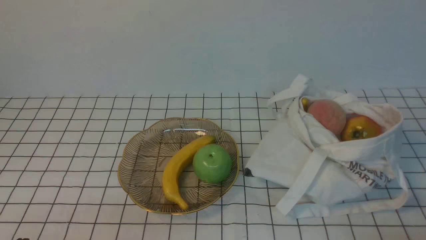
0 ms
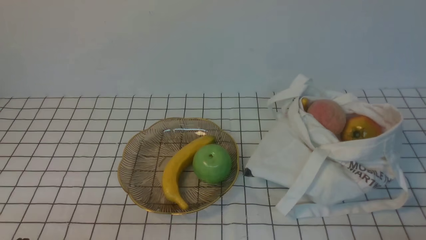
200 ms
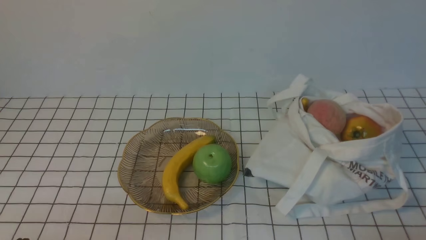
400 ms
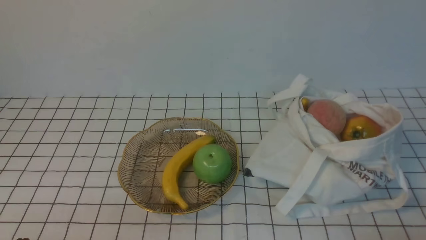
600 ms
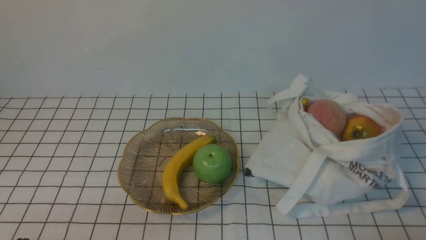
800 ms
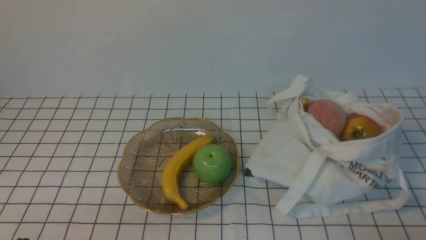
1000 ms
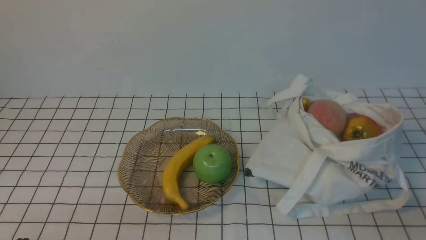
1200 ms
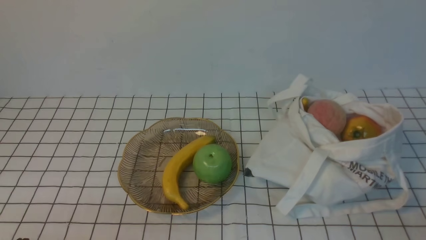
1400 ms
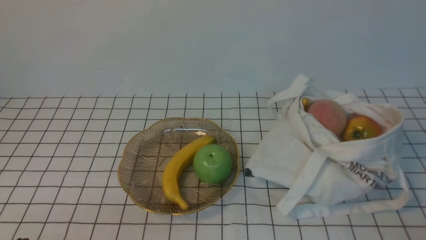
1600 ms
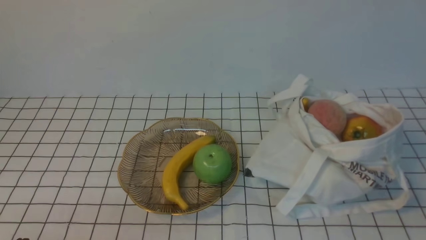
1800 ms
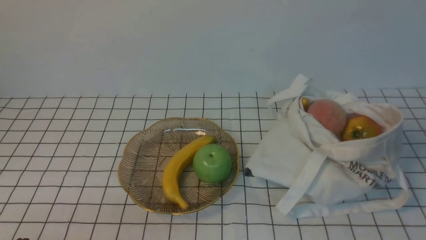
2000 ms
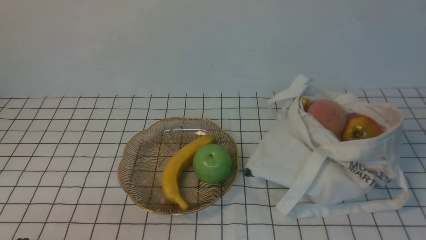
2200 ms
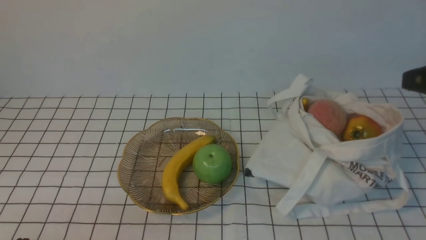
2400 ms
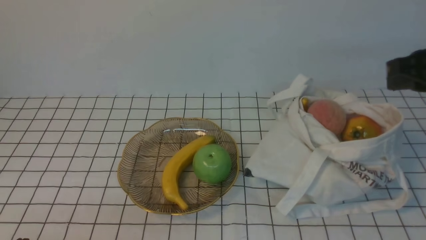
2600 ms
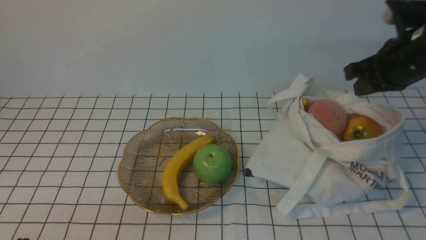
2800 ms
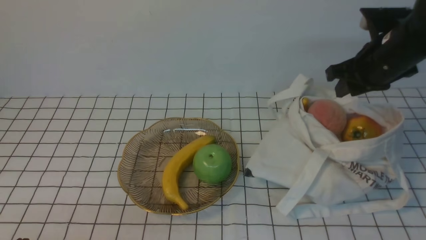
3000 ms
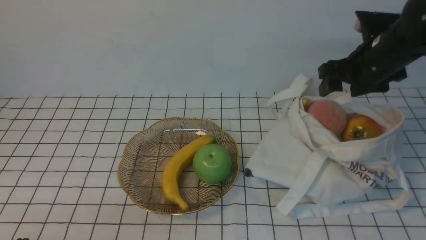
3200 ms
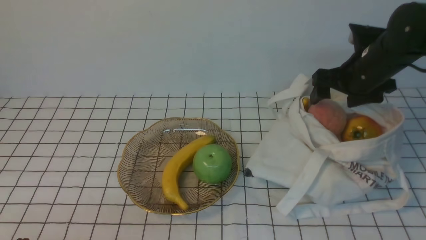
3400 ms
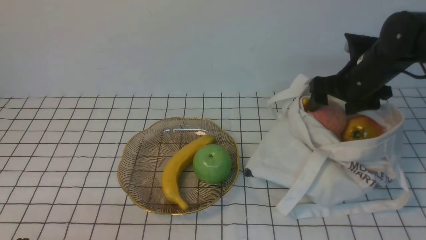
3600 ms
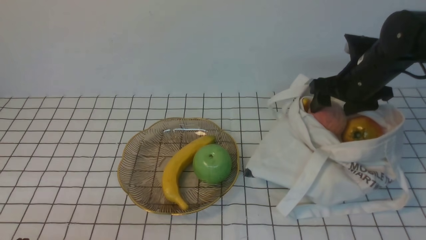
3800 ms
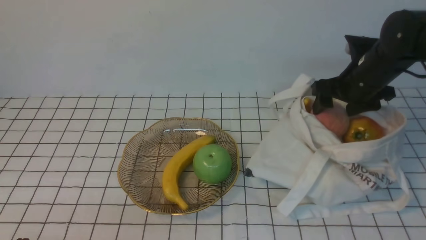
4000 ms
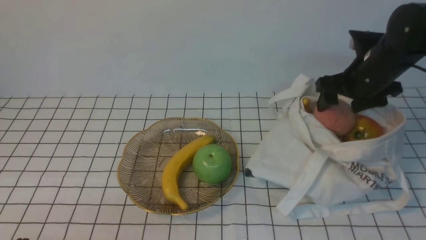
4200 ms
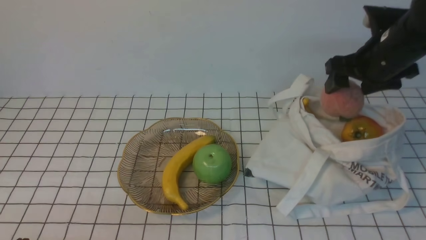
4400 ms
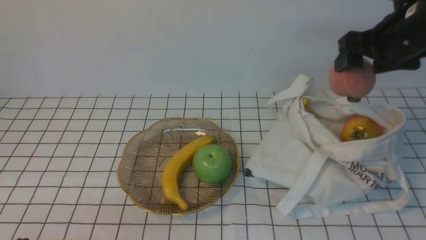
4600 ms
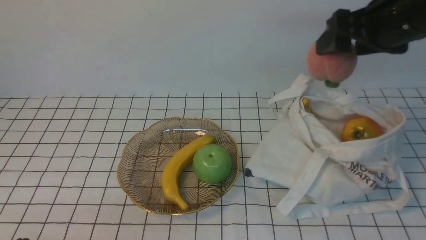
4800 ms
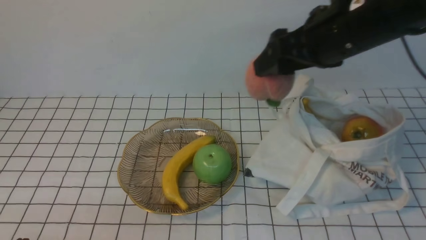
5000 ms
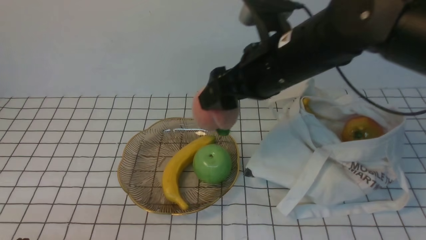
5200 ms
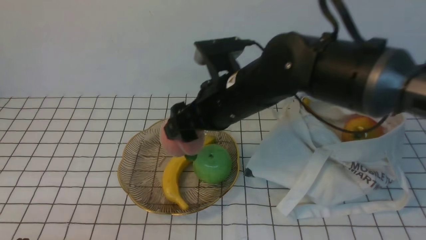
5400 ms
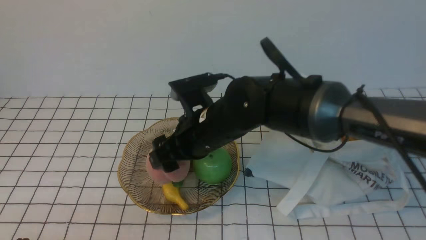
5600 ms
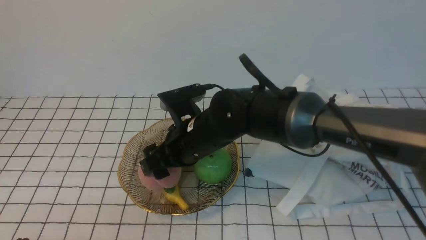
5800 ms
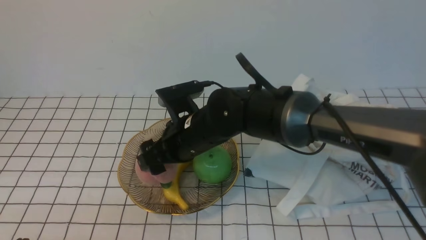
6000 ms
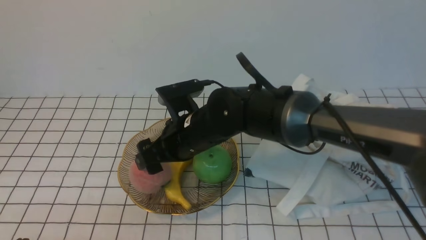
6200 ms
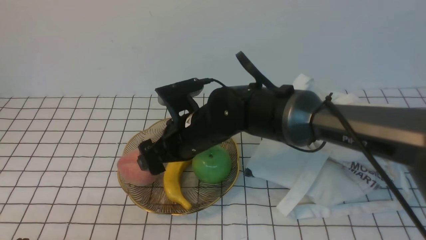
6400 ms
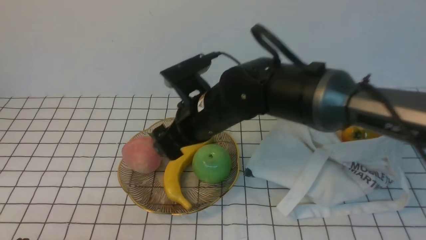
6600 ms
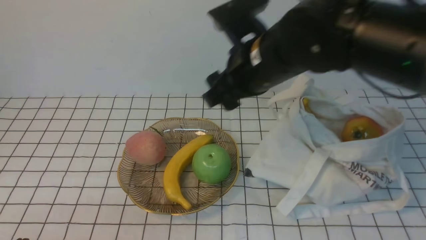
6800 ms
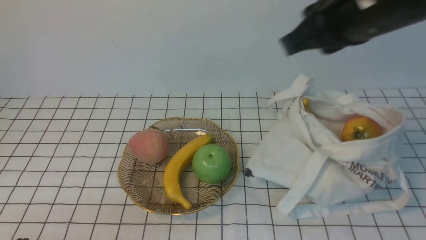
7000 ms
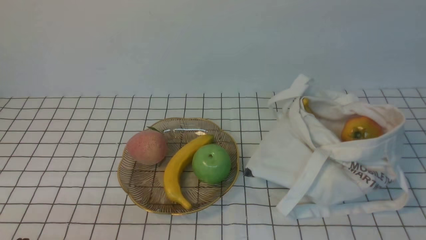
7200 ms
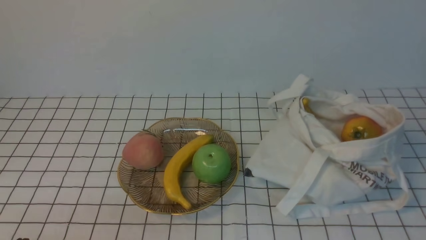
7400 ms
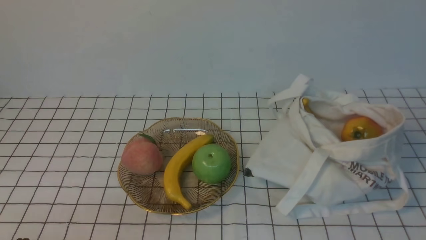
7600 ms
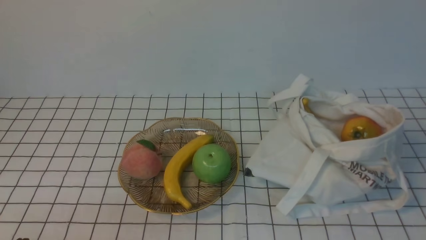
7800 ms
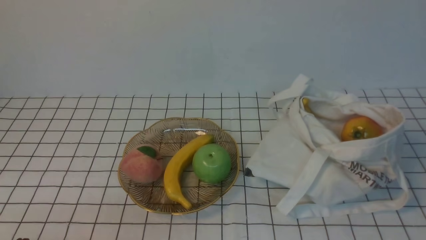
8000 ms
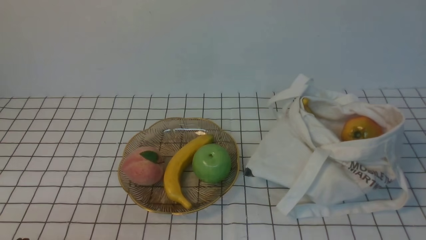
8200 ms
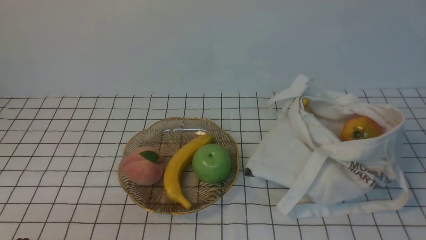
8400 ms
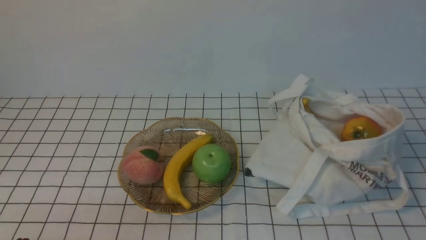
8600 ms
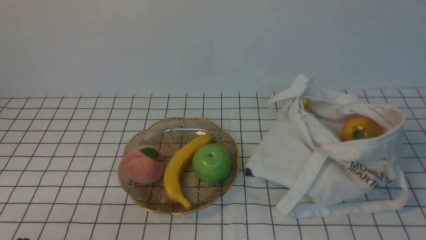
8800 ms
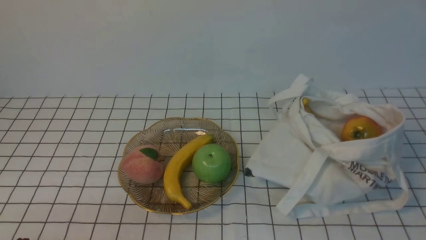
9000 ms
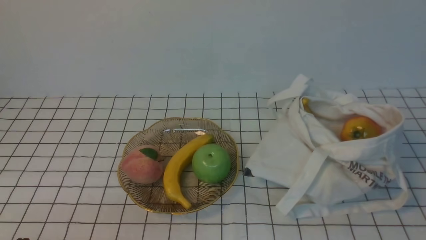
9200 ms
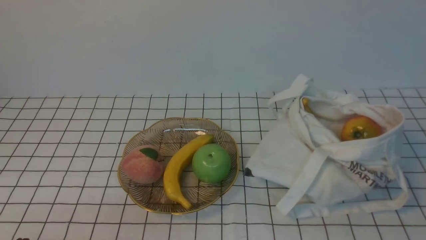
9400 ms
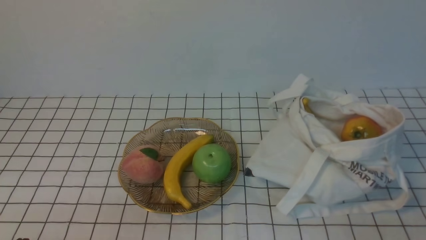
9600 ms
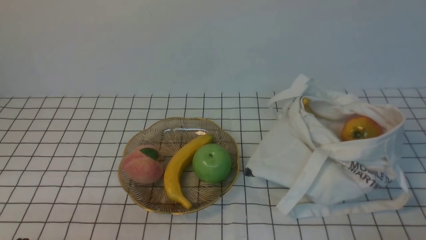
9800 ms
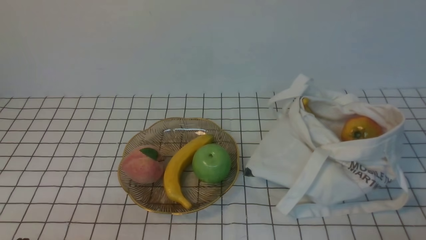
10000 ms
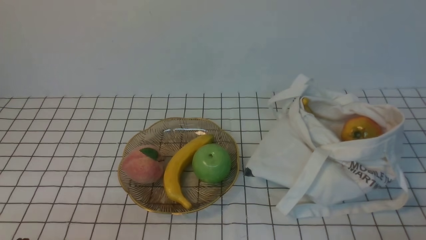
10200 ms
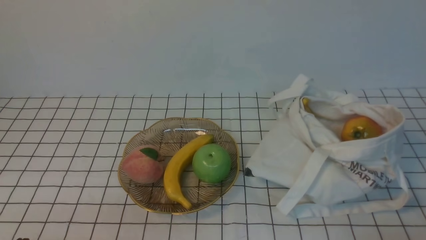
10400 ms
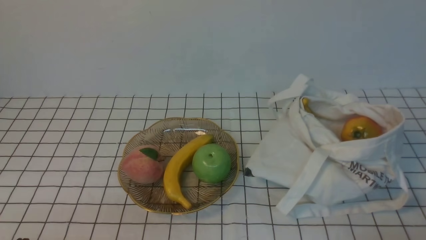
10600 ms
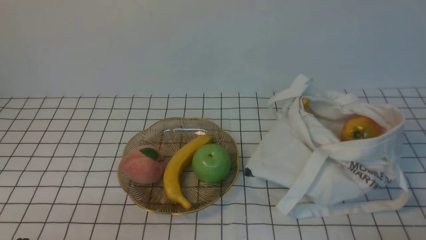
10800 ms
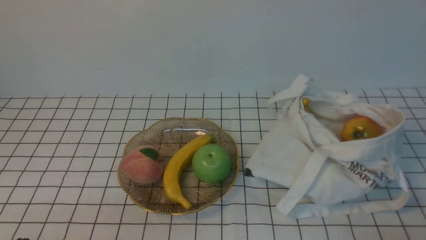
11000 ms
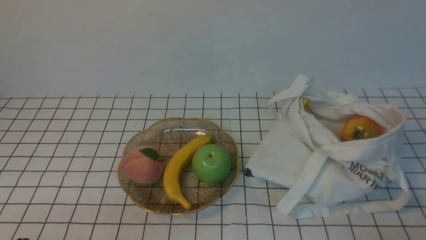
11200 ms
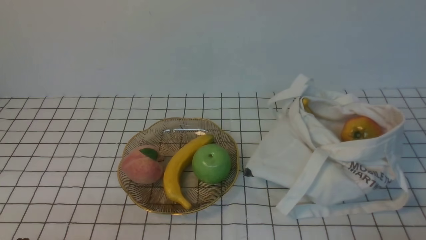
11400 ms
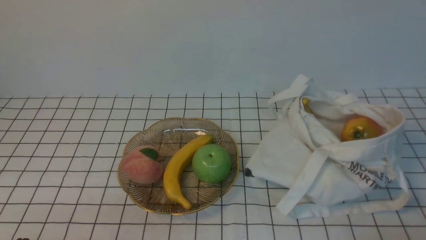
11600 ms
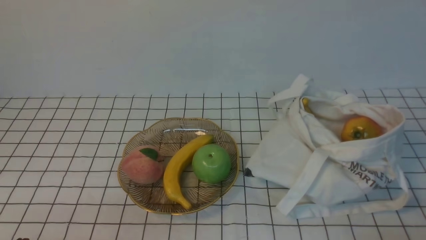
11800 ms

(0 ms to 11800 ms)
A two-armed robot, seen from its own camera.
Step, 0 ms - 4200 ms: use the right arm to grab a peach from the bag.
Step, 4400 ms - 6200 ms: use the right arm to put the peach into the empty plate on the left.
1400 ms - 3000 ms: The right gripper travels forward by roughly 30 cm, and opens its fingers.
3000 ms - 4400 ms: The right gripper opens its fingers.
4400 ms - 6000 ms: The right gripper goes approximately 30 cm to the left.
6000 ms - 7400 ms: The right gripper travels to the right, upward and backward by approximately 50 cm, and closes.
10400 ms - 11800 ms: Both grippers stay about where they are.

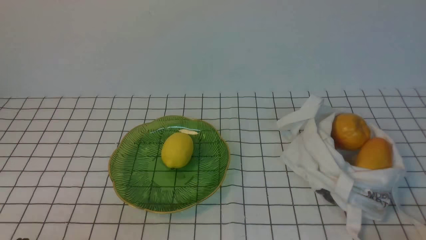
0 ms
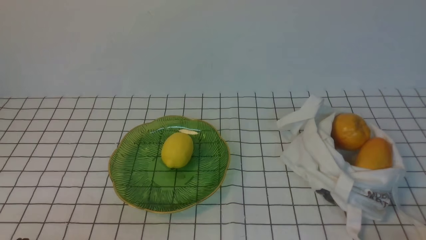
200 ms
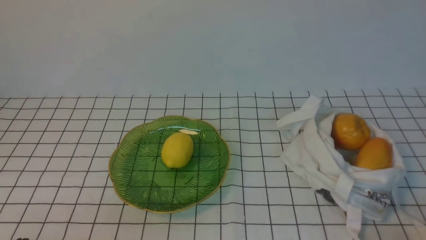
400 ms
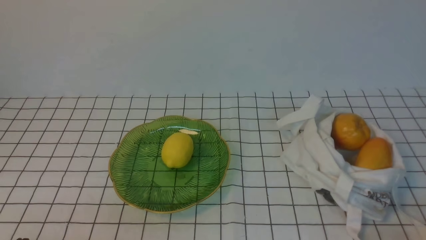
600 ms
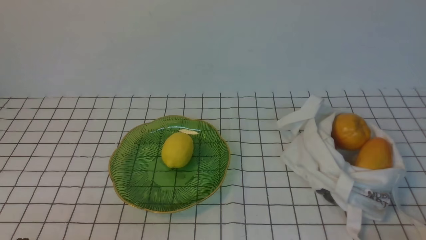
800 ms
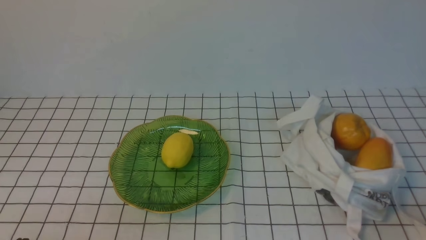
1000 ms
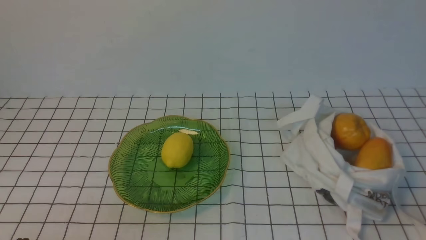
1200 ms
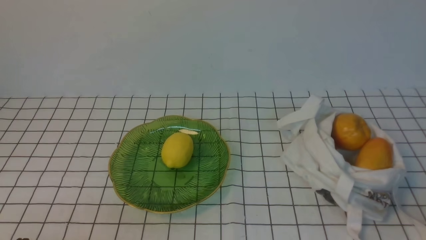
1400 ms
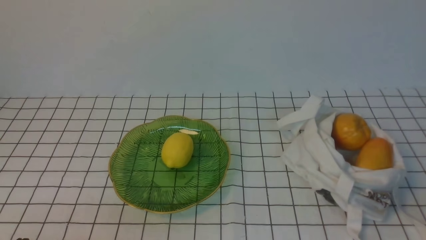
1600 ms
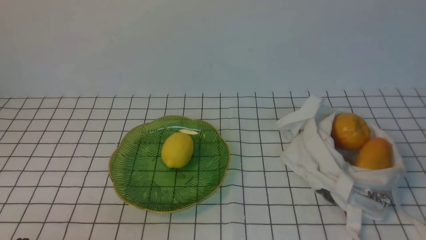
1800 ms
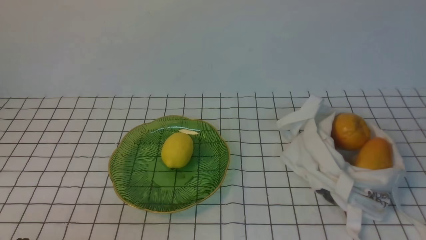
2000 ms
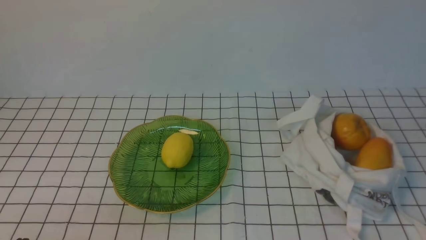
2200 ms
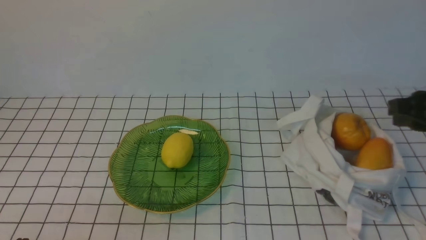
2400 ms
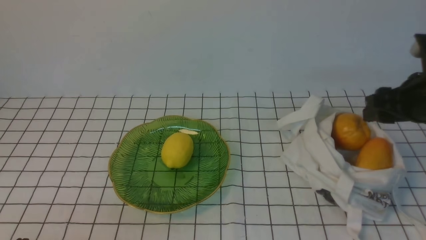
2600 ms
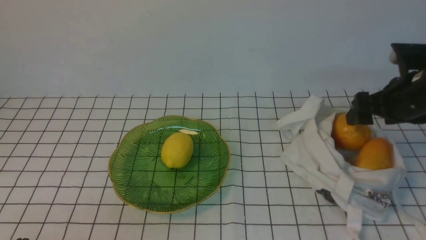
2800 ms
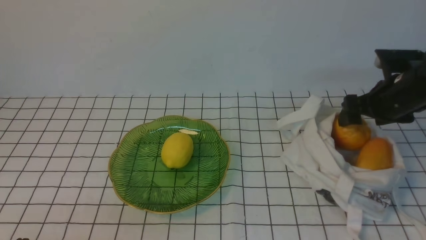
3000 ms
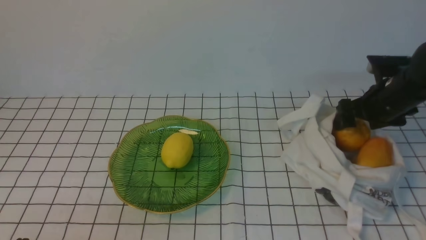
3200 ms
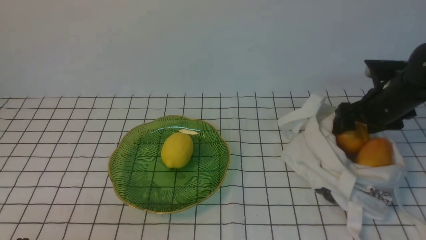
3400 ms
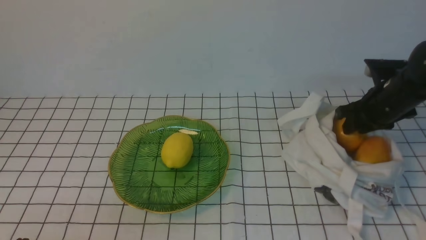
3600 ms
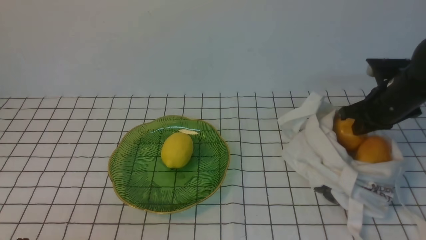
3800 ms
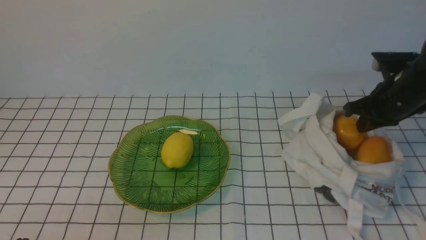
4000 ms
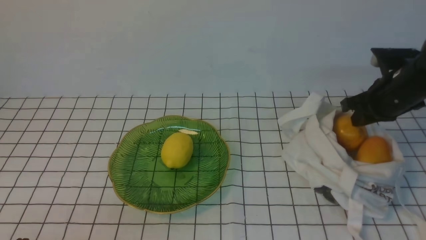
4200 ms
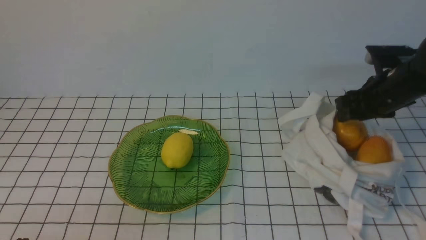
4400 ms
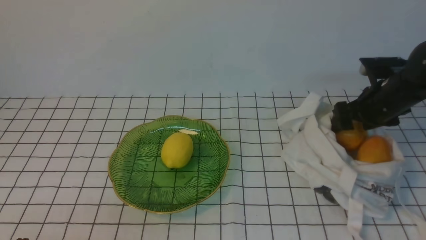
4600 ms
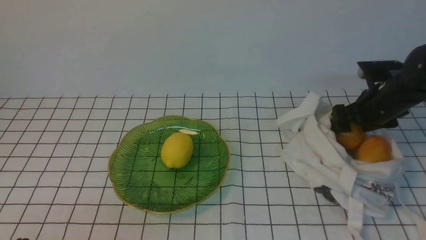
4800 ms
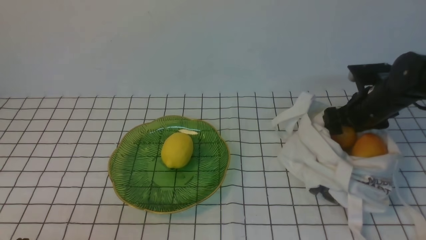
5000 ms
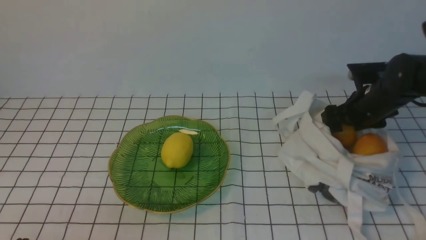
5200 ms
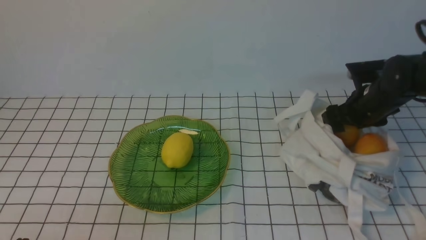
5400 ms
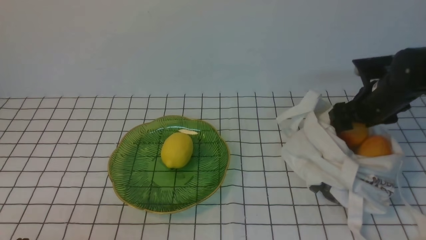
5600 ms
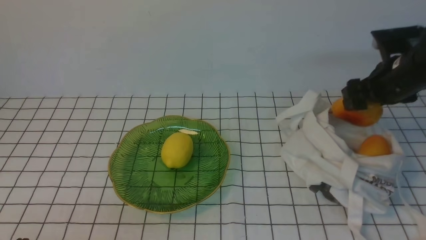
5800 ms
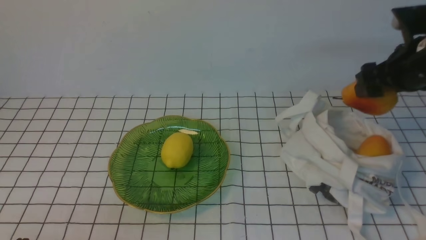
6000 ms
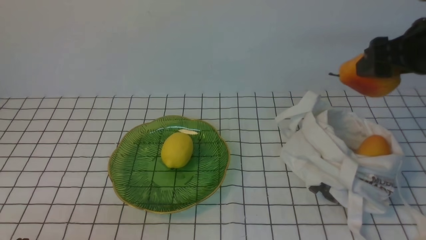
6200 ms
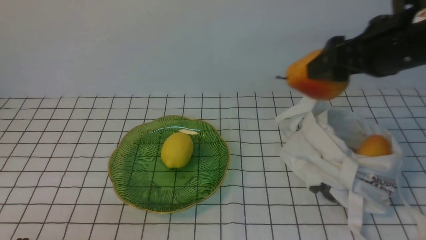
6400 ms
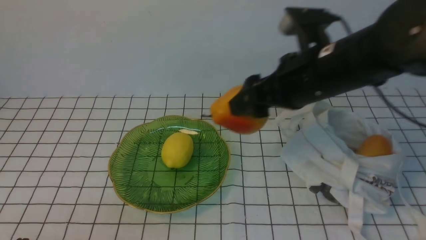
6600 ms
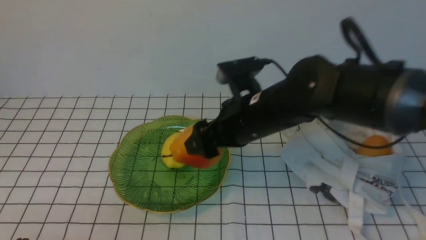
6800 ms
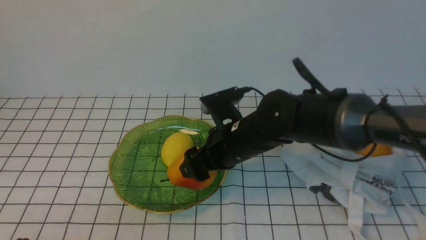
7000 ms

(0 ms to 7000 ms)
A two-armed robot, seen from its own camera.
Step, 0 ms - 5400 ms: use the right arm to grab a pear from the bag.
1400 ms - 2800 ms: The right gripper goes some 30 cm forward, and opens.
2800 ms - 4200 ms: The right gripper closes up.
4200 ms - 5600 ms: The right gripper opens its fingers.
5600 ms - 7000 ms: The right gripper moves to the left, some 25 cm.
